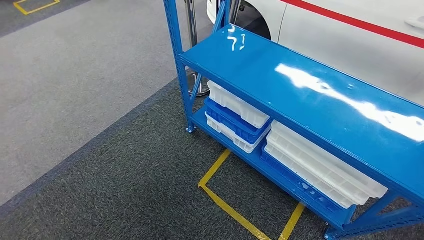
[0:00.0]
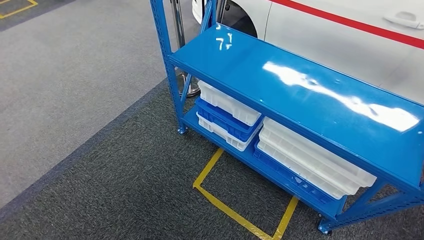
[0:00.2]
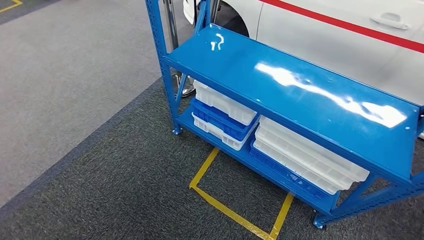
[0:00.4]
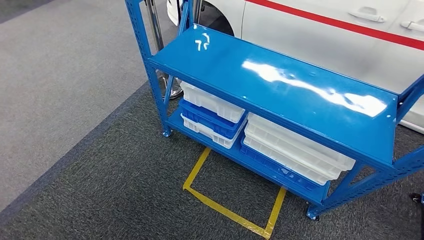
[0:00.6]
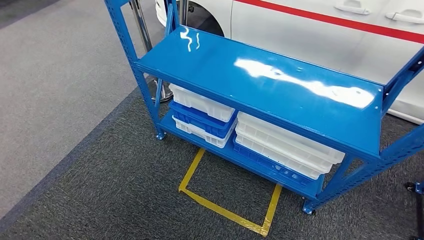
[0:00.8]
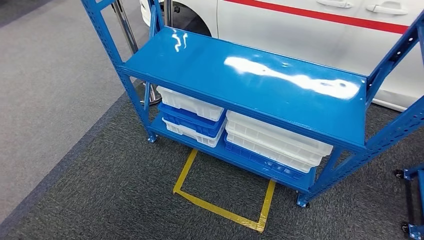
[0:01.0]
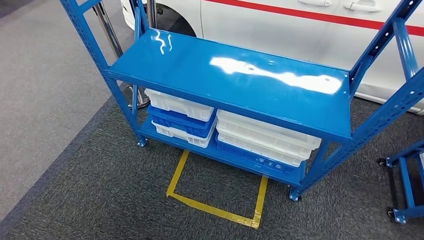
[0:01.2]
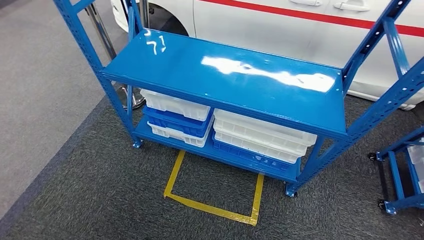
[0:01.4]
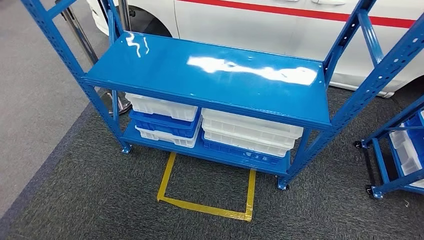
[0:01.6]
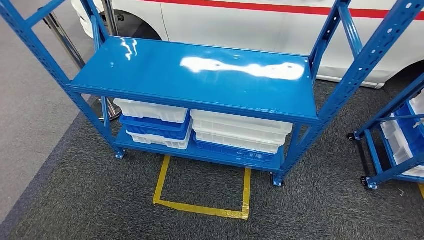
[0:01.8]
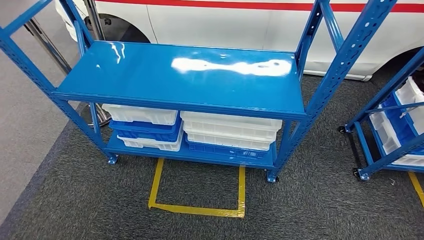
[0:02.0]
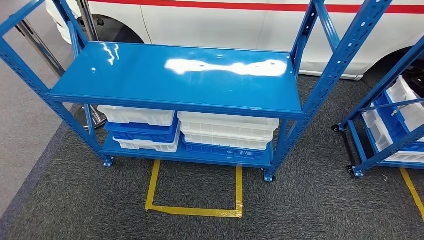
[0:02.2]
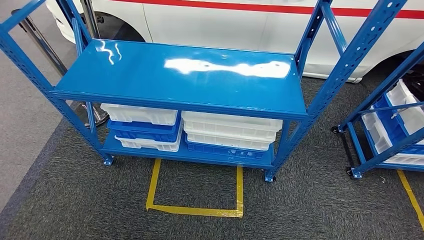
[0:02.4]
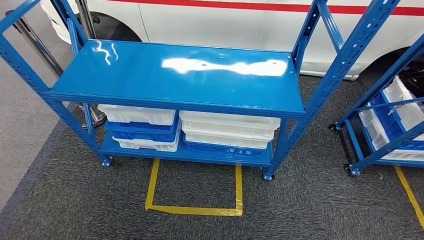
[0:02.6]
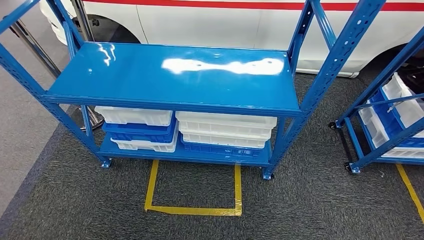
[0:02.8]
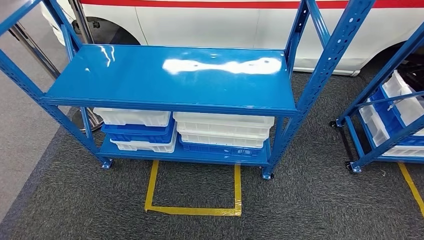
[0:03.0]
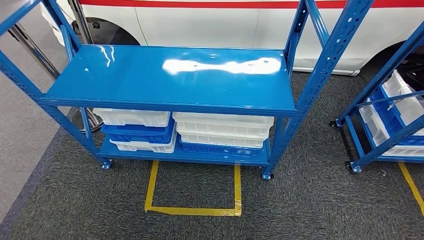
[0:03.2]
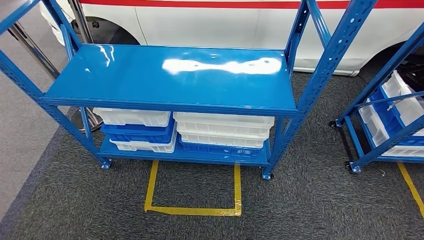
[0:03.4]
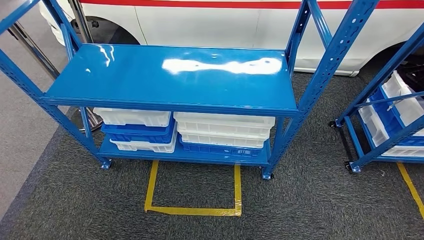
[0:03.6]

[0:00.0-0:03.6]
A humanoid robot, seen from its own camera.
Step, 0:00.0 to 0:03.6: Return to the initial position at the shelf.

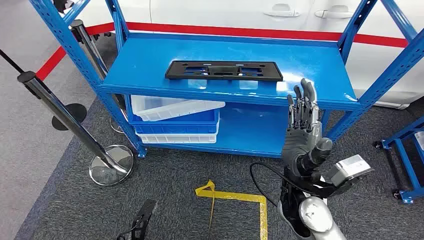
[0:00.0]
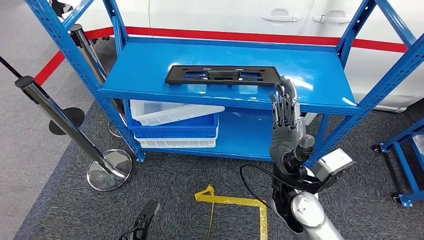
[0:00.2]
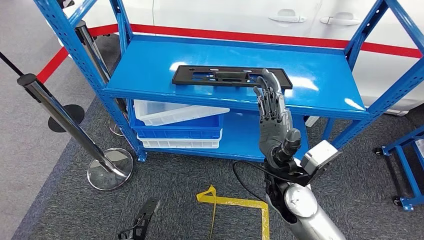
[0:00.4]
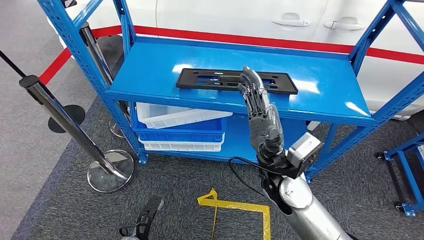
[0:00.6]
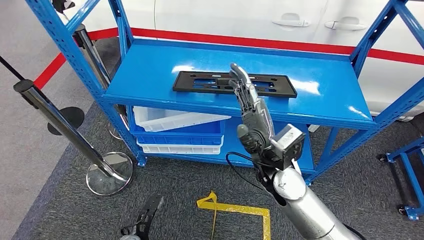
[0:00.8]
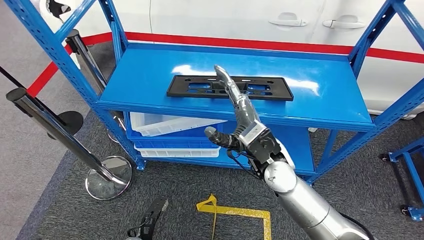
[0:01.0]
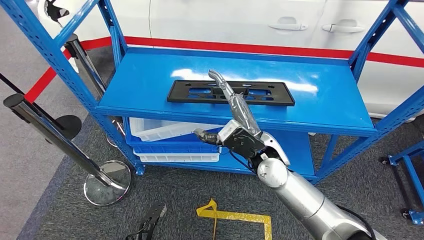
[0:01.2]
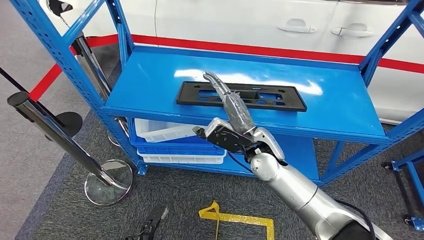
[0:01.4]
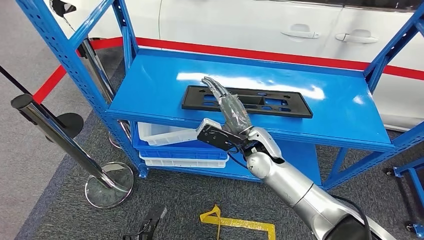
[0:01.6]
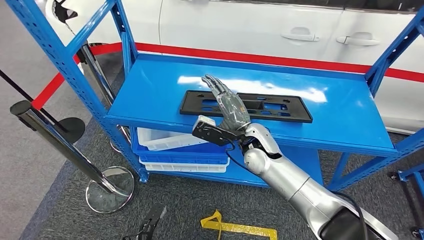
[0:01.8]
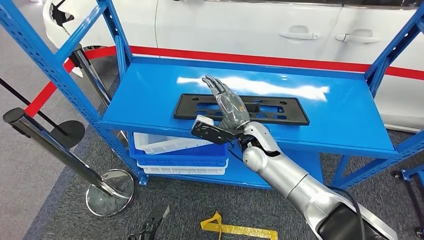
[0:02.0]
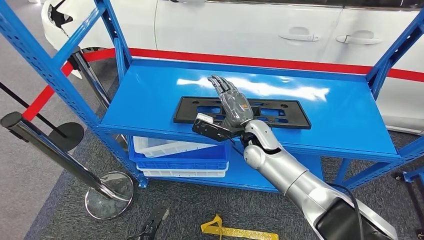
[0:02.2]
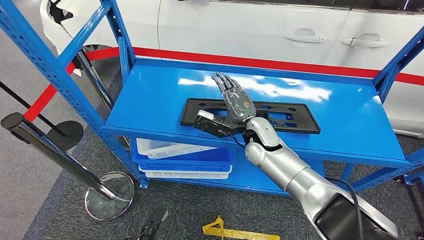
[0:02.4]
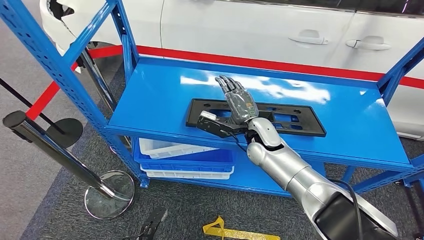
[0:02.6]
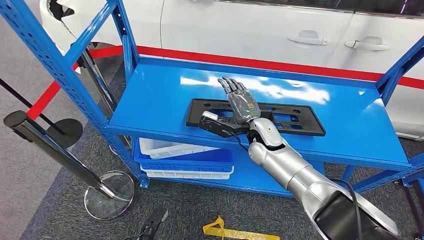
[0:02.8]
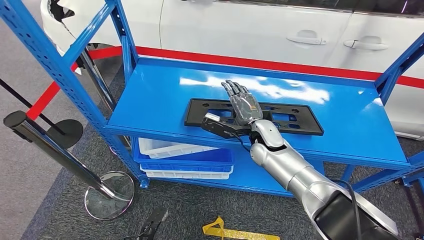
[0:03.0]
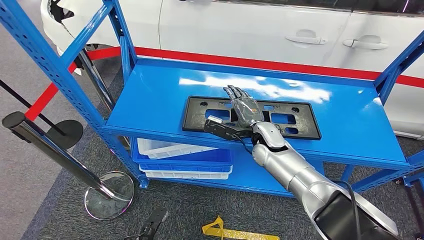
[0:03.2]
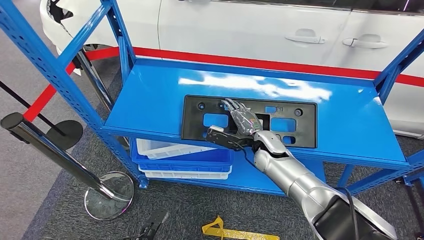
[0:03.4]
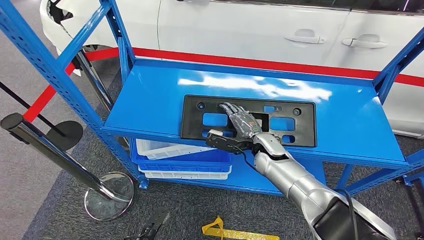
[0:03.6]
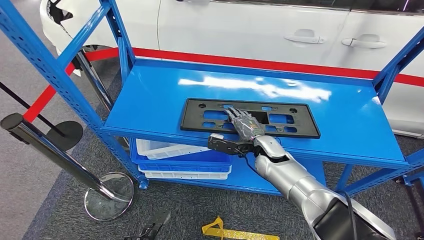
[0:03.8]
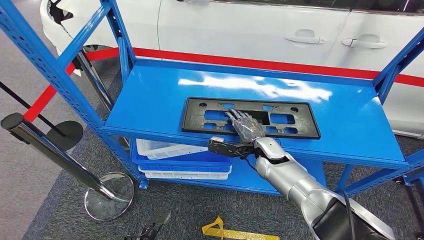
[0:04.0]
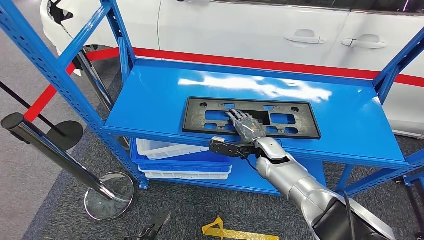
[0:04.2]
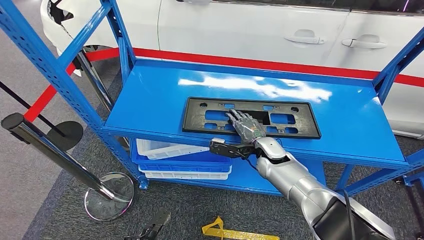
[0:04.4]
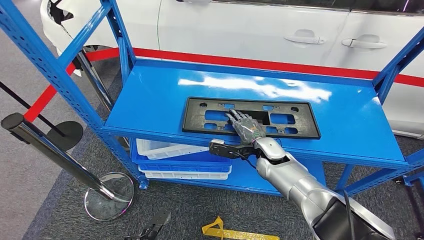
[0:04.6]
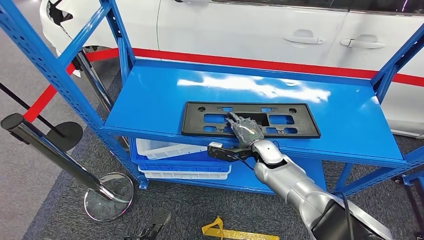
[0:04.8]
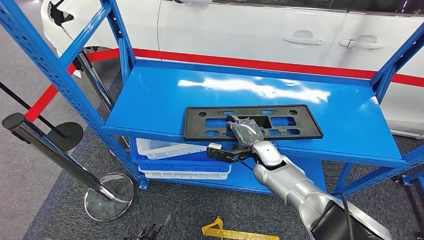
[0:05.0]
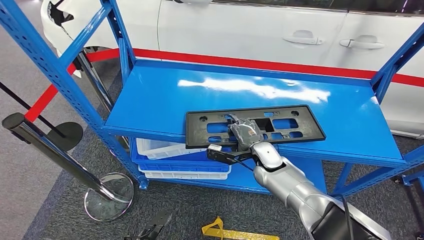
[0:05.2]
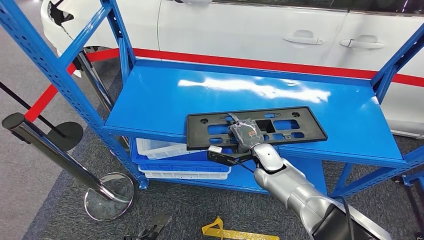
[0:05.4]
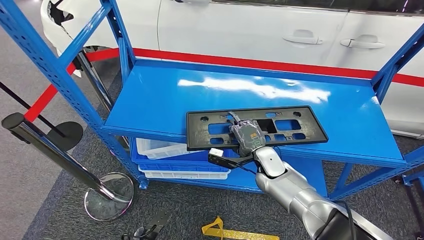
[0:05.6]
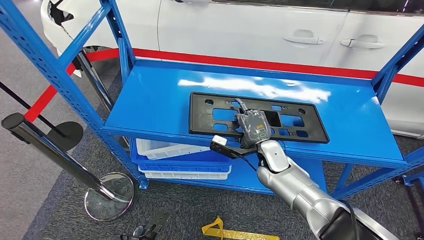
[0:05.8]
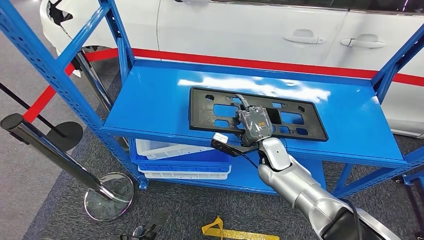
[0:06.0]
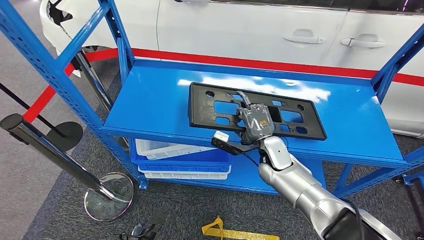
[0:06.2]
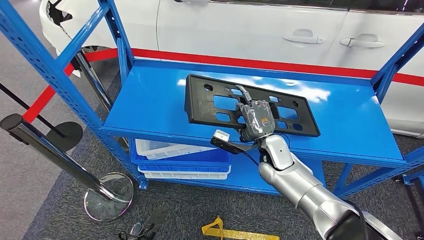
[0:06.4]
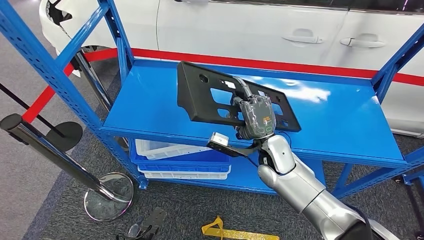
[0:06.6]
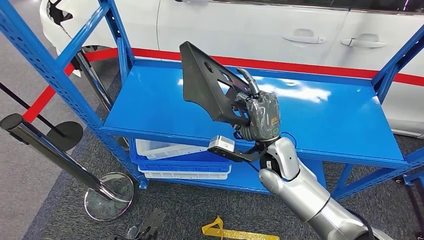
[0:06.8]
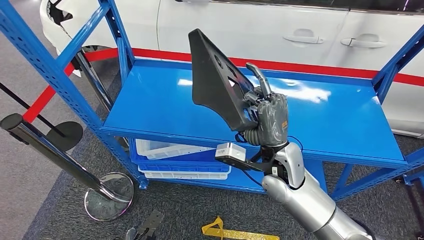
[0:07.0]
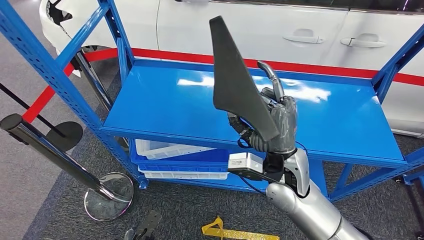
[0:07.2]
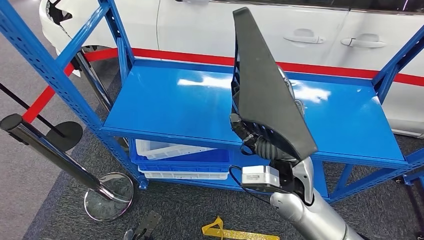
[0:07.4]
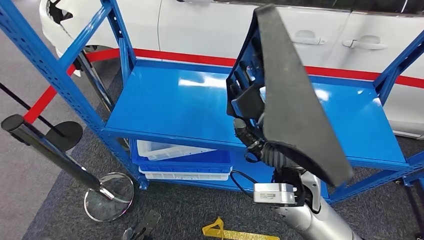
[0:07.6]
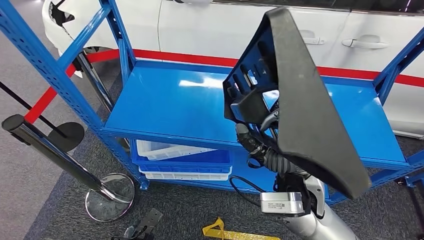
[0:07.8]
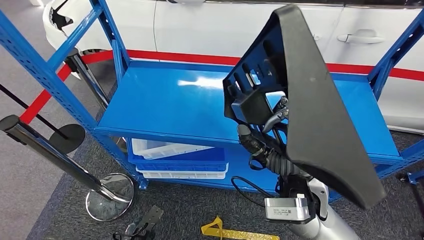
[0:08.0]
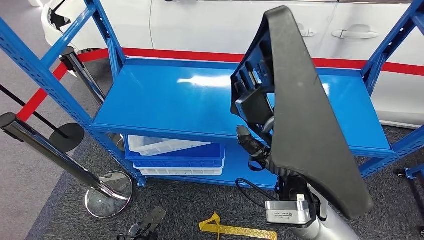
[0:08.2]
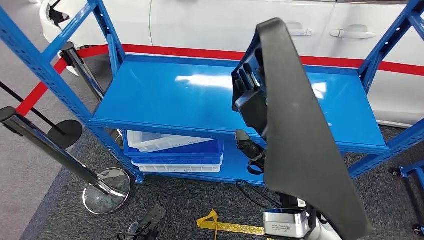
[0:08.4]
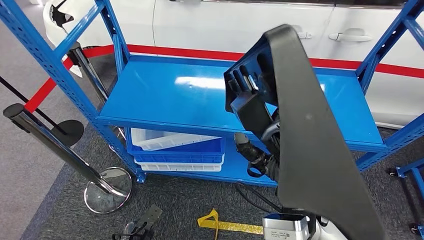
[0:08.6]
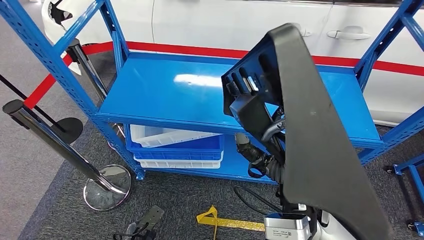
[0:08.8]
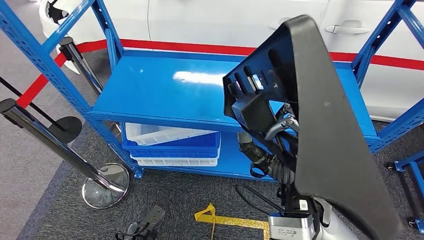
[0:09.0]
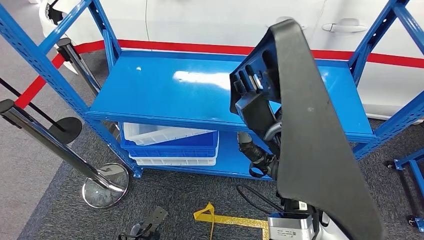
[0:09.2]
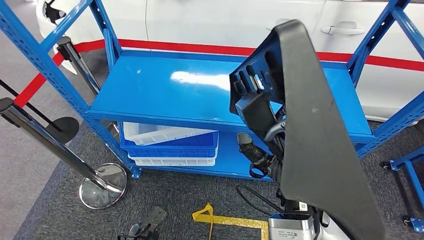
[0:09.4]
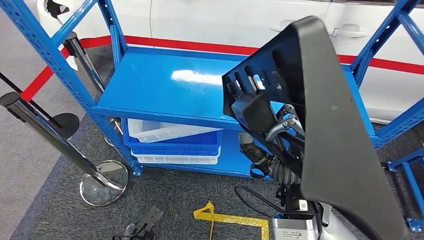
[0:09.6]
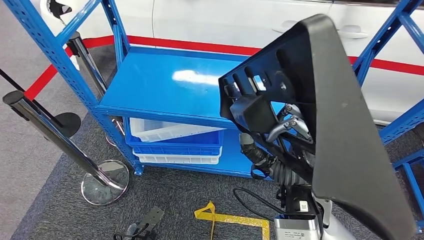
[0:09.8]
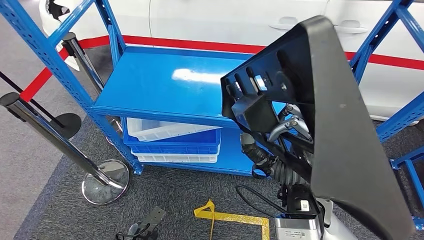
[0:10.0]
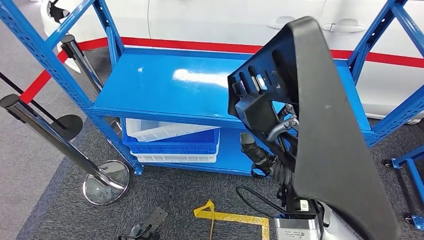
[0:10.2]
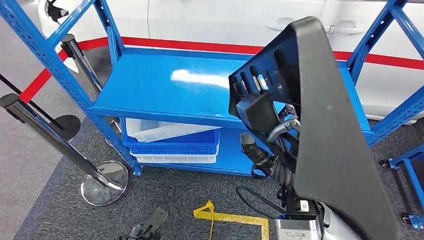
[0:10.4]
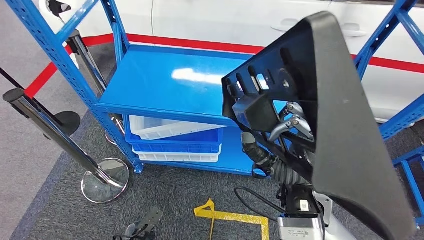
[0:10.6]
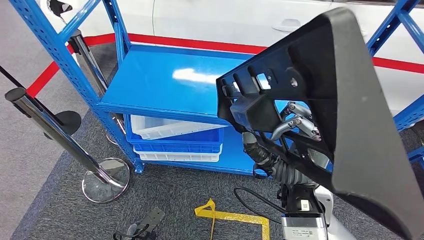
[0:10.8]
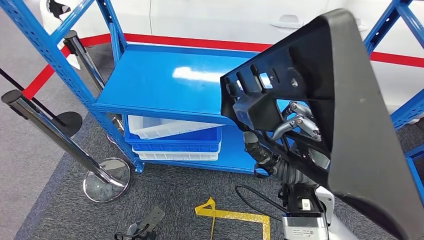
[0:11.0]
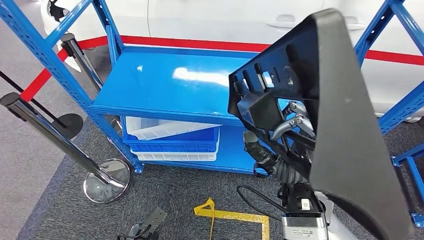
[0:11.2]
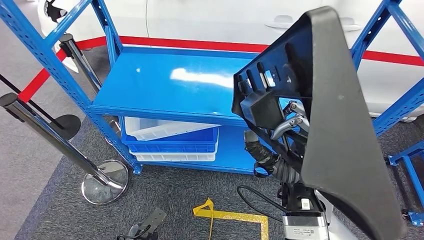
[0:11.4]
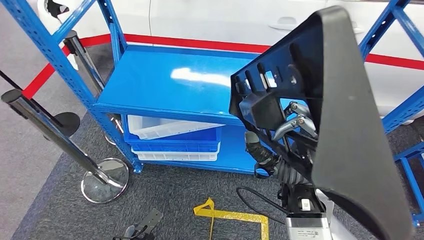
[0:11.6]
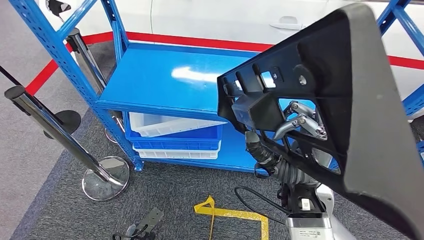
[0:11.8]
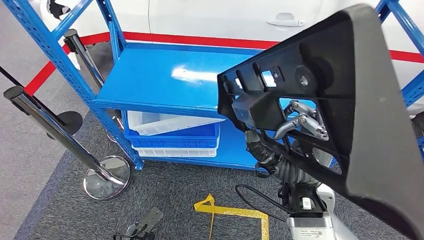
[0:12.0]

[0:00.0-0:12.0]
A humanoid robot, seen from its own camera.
Step, 0:00.0 to 0:07.2: Pick up the large material from the shelf.
0:03.0 to 0:04.4: The right hand shifts roughly 5 cm downward.

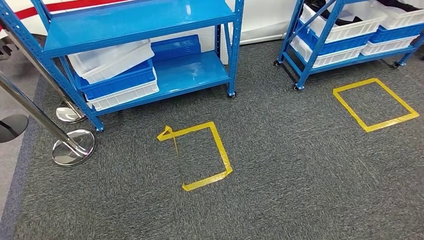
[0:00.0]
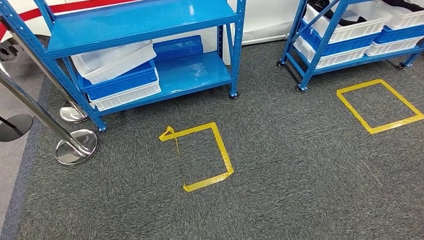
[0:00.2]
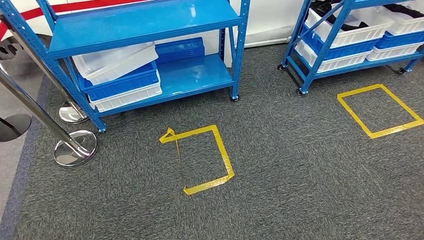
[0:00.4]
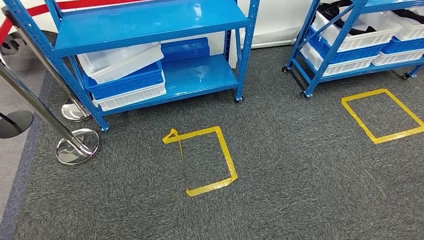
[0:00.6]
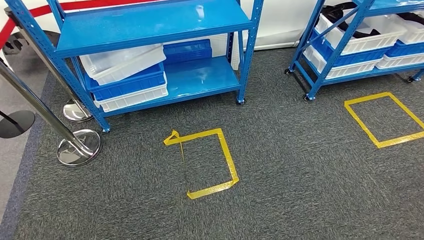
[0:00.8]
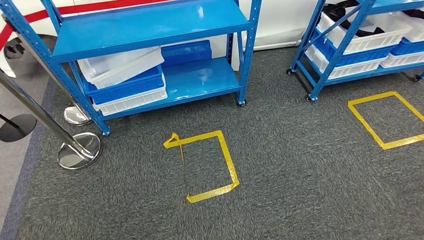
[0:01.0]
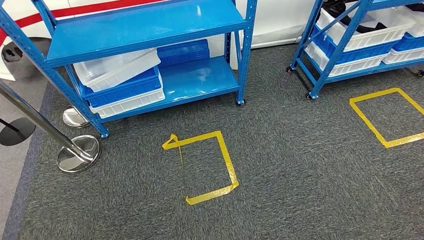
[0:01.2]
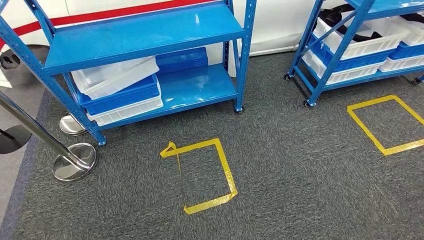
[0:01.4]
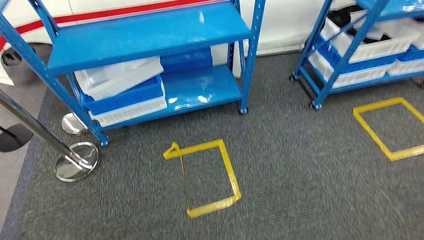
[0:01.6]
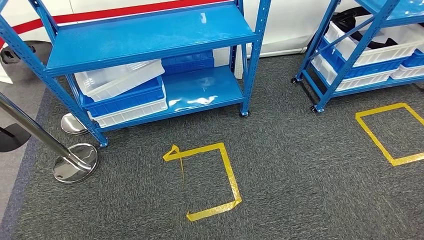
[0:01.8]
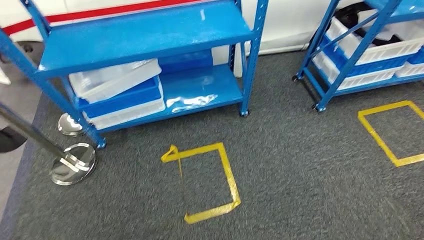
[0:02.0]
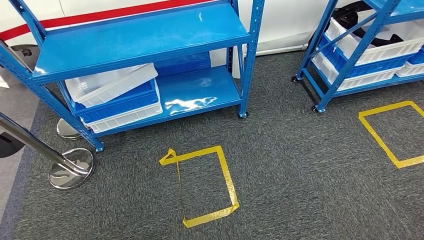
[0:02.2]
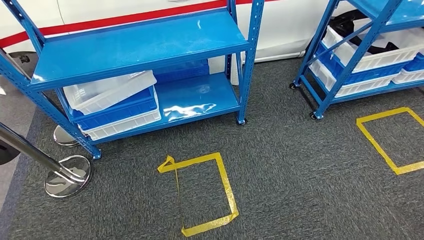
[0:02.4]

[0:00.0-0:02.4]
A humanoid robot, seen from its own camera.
Step, 0:00.0 to 0:02.4: Return to the initial position at the shelf.
